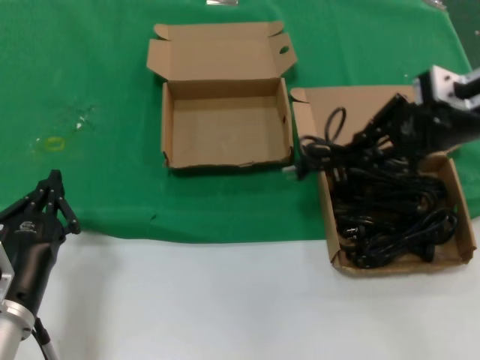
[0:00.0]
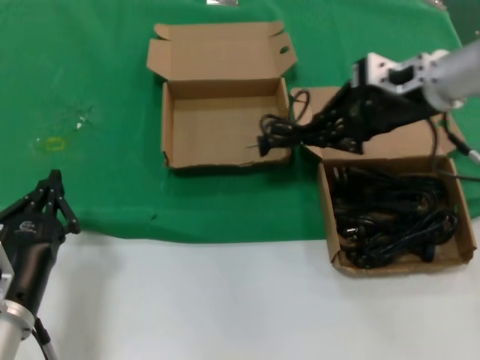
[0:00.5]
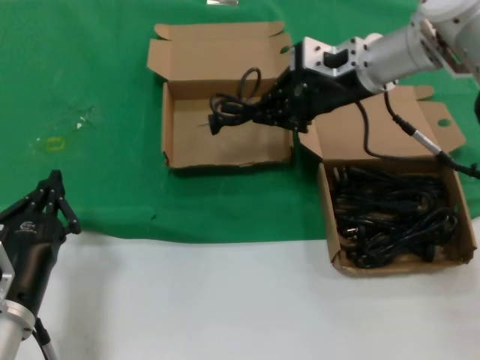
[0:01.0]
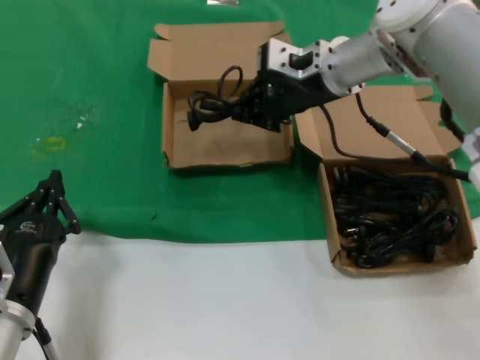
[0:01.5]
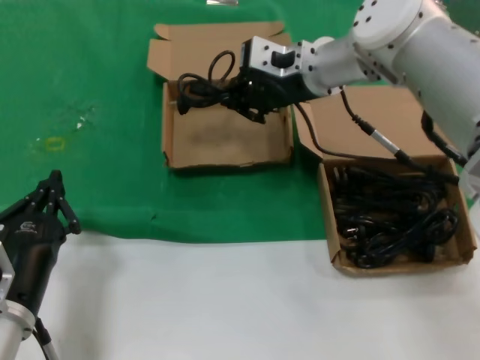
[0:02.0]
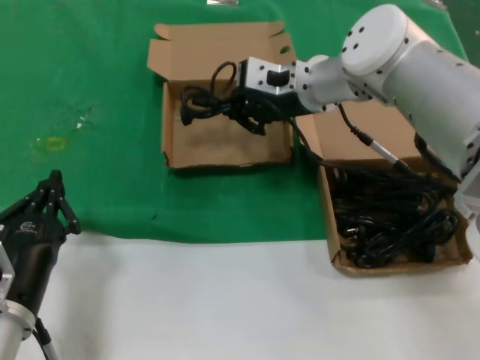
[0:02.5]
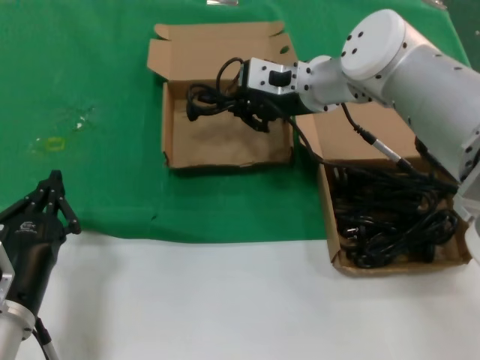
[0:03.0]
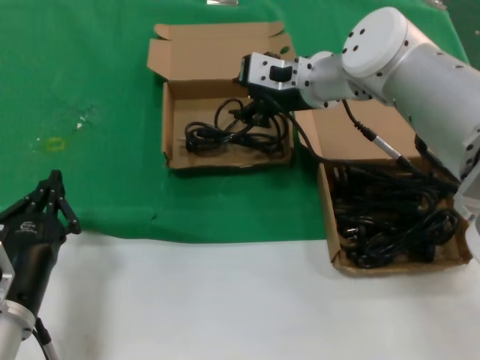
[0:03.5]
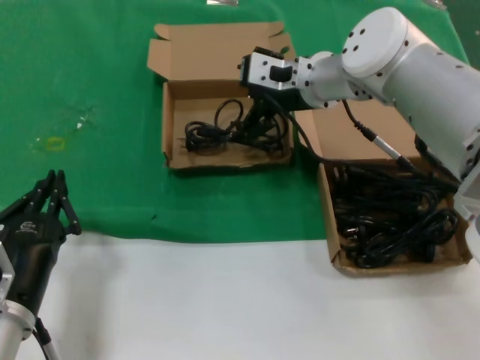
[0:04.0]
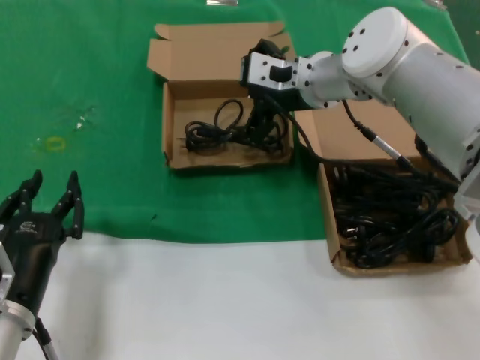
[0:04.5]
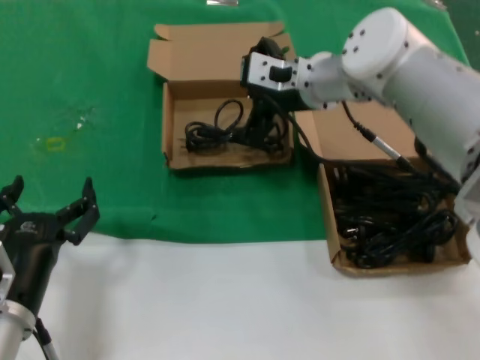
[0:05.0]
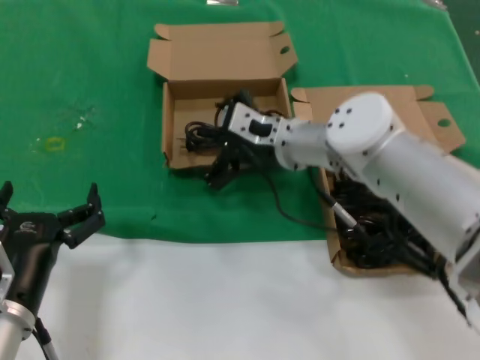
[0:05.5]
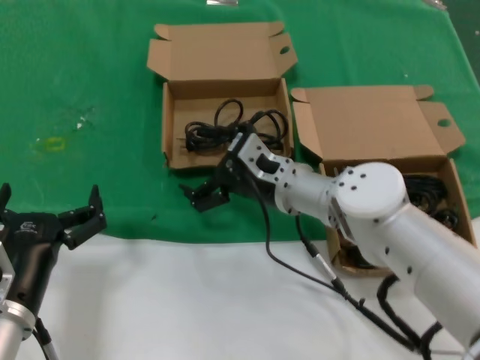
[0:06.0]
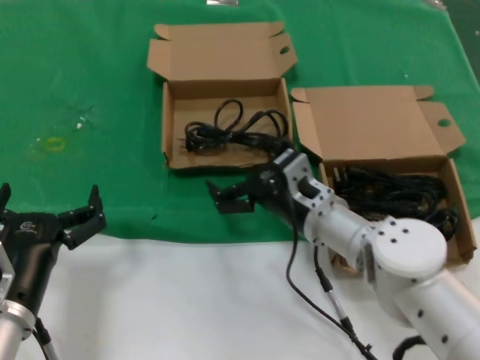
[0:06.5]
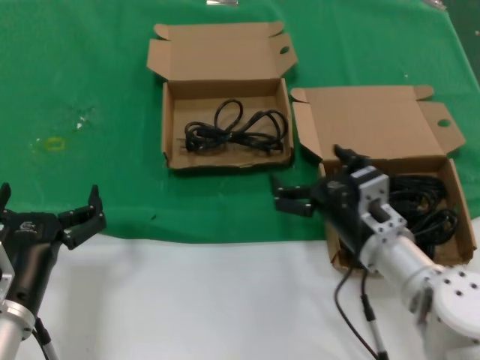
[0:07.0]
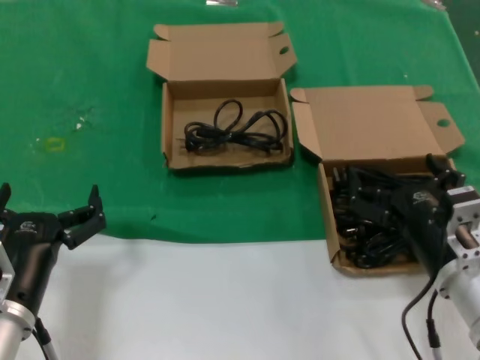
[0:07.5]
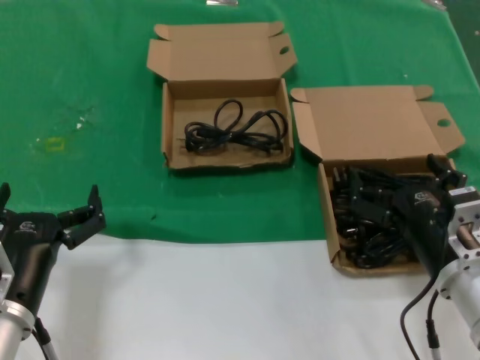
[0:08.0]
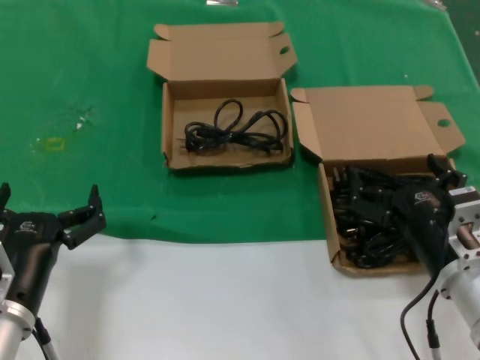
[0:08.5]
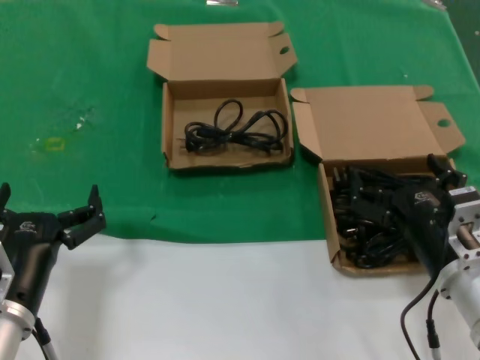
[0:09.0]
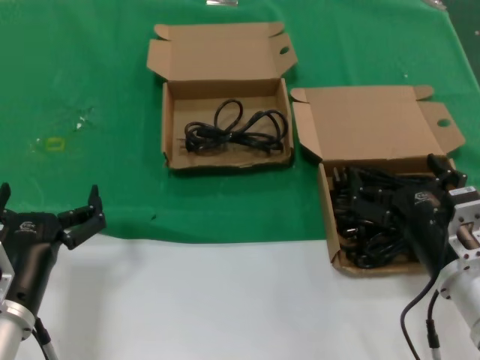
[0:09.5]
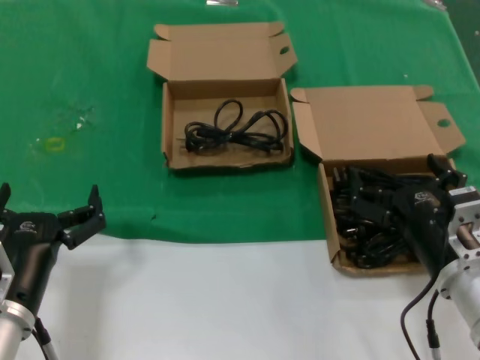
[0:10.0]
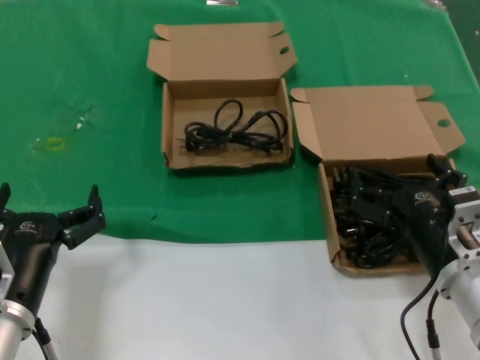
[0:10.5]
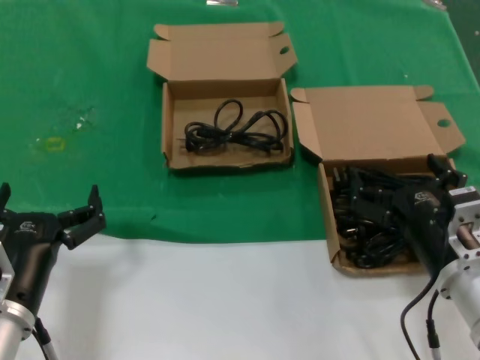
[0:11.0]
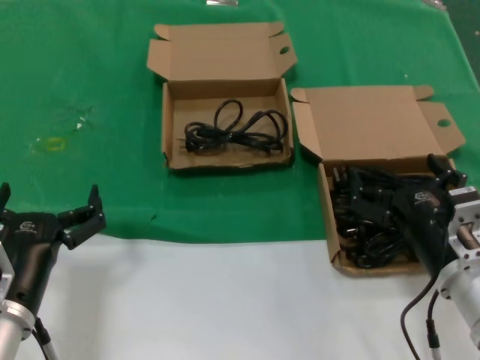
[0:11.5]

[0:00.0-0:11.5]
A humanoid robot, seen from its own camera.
Task of the whole recording: take the parts from the box containing them and put them into an empty box.
Step, 0:00.0 to 0:03.0: Place the data cable in the another box.
0:00.0 to 0:02.0: The right hand is displaced to the left and forward by roughly 20 cm.
0:02.0 to 0:04.0: There are only small adjustments of the hands.
0:04.0 to 0:06.0: The right hand moves downward and backward, roughly 15 cm.
0:06.0 to 0:07.5: The right hand moves backward and to the right, about 25 cm.
0:07.5 to 0:11.5: Neither hand changes place.

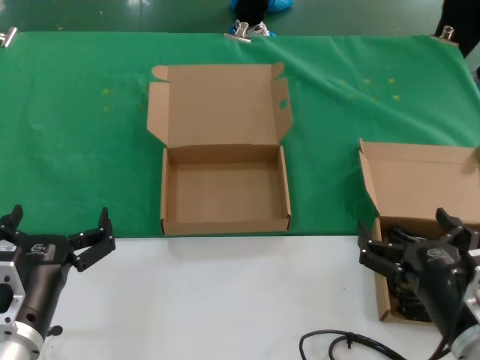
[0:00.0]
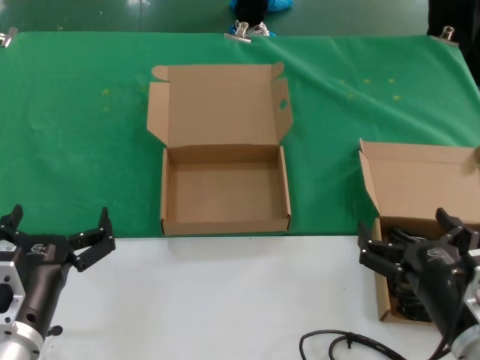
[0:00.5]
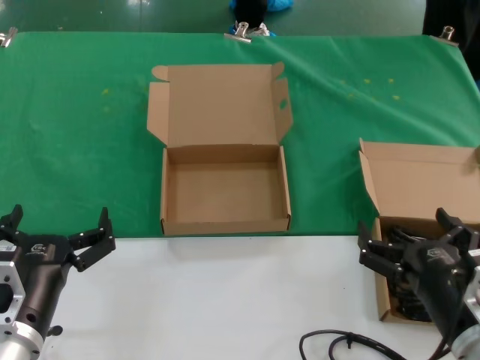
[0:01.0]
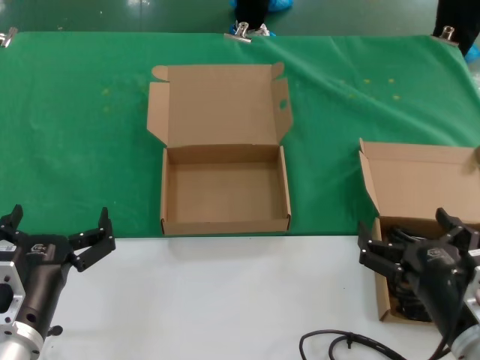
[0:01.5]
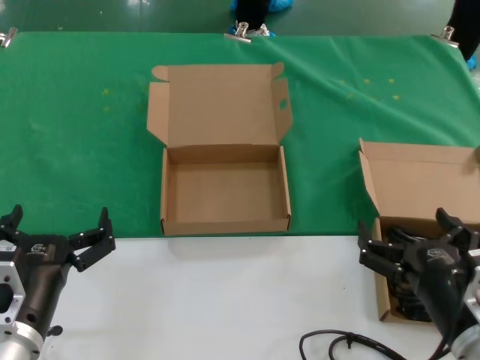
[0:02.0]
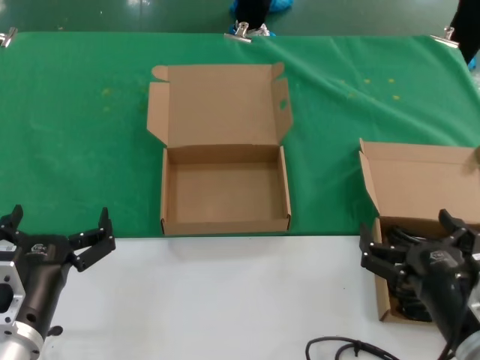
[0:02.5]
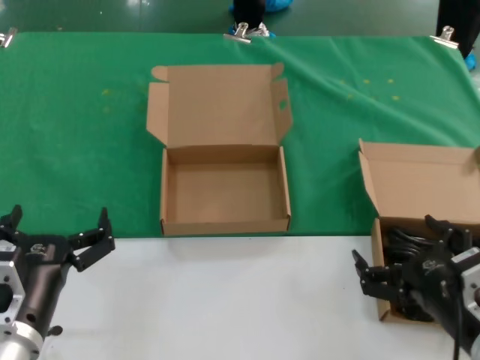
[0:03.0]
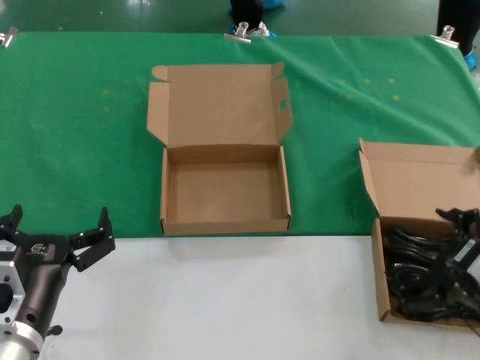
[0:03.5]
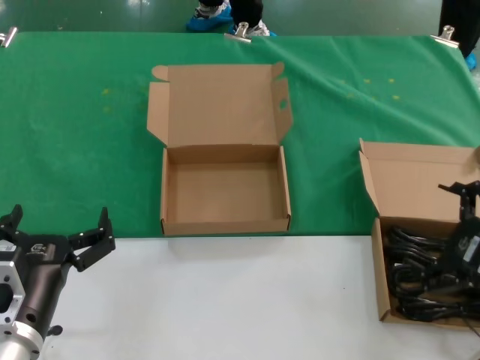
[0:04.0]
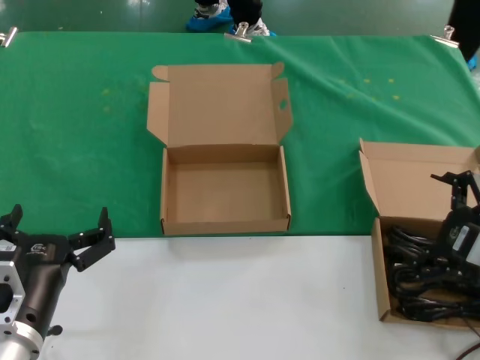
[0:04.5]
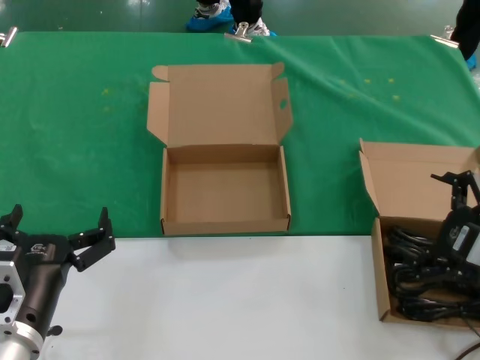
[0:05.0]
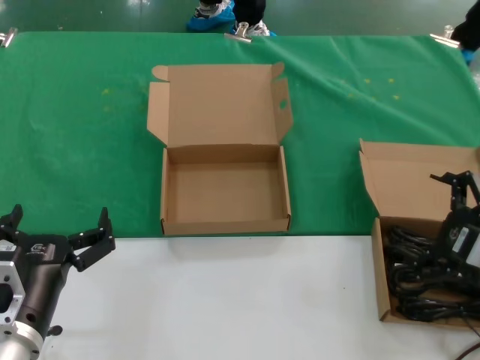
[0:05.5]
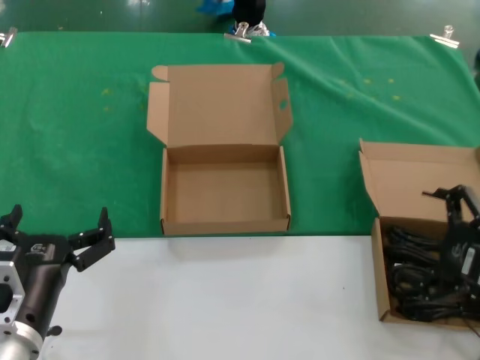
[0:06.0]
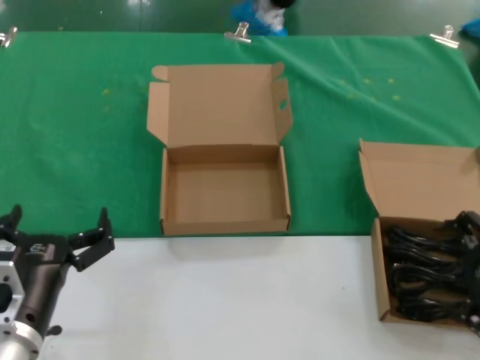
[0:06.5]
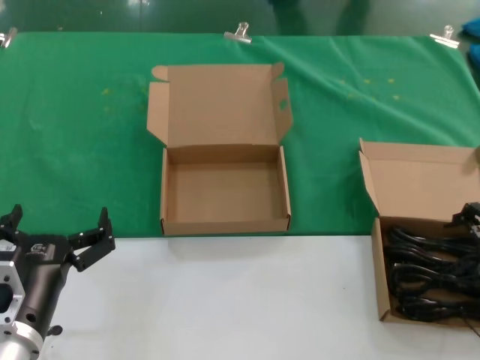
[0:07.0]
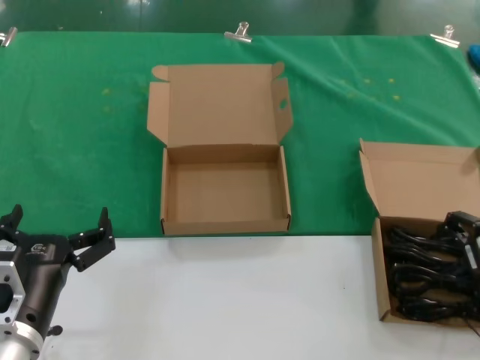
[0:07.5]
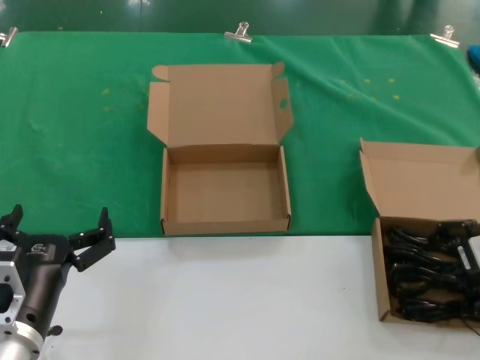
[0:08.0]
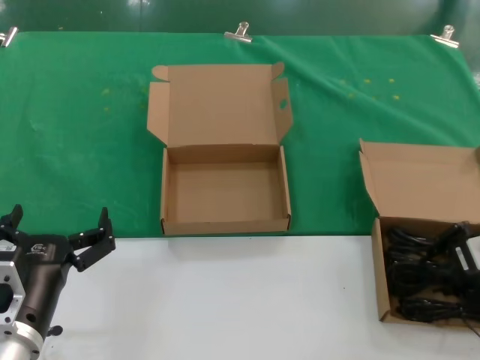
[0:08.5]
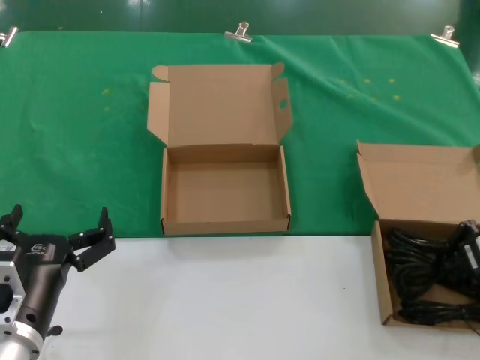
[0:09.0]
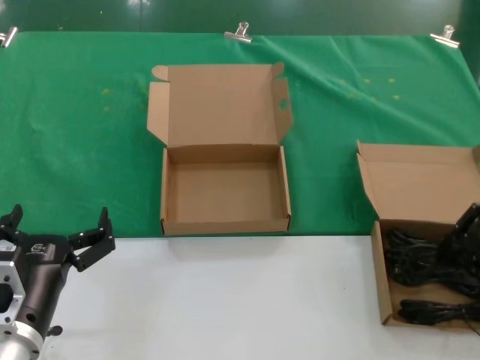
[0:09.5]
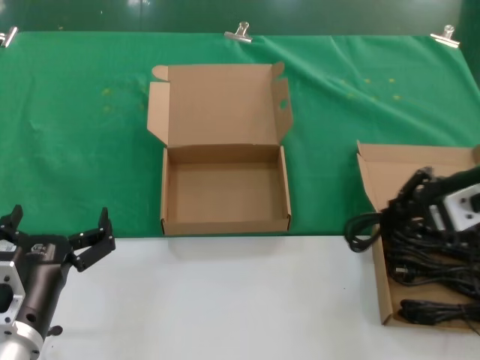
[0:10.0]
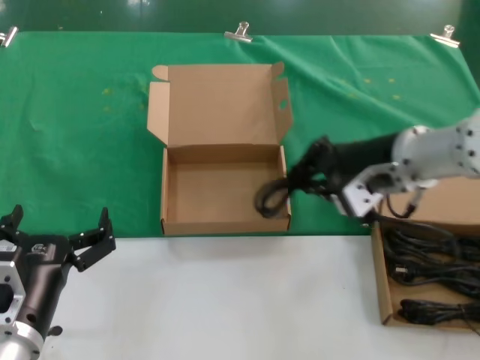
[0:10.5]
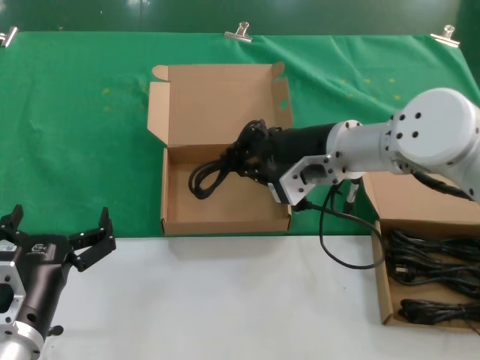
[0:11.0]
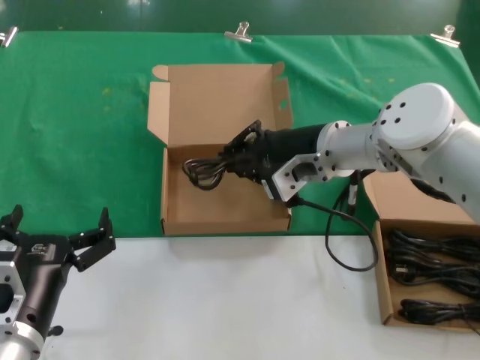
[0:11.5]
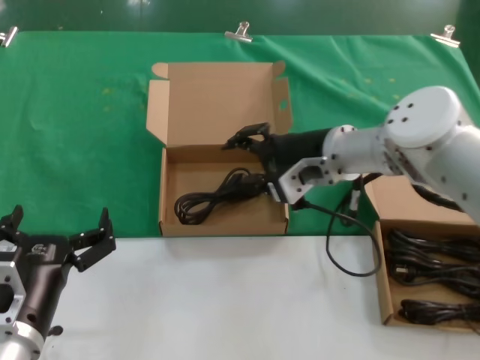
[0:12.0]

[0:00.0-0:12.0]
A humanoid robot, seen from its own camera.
Task of the whole recording: take the parts from the box containing them and put them into an empty box.
Step, 0:00.0 to 0:08.5: Grasp the data cable.
Step, 0:09.0 to 0:11.5: Place the data cable in the another box.
0:00.0 to 0:02.0: The two hands keep their place.
0:02.0 to 0:04.0: The right hand shifts about 15 cm to the right and upward.
0:04.0 to 0:06.0: The hands stay close to where they were, moving slightly.
0:06.0 to 0:08.0: The right hand heads forward, covering about 10 cm.
0:08.0 to 0:10.0: The right hand shifts some 10 cm upward and to the left.
0:10.0 to 0:12.0: The right hand goes some 20 cm to the left and forward.

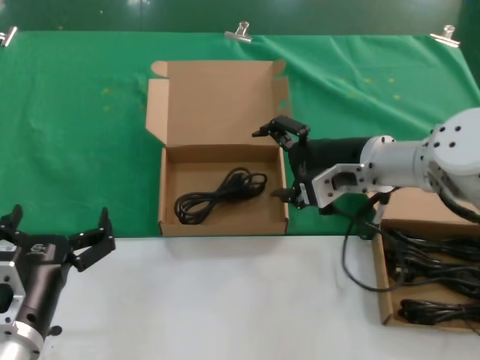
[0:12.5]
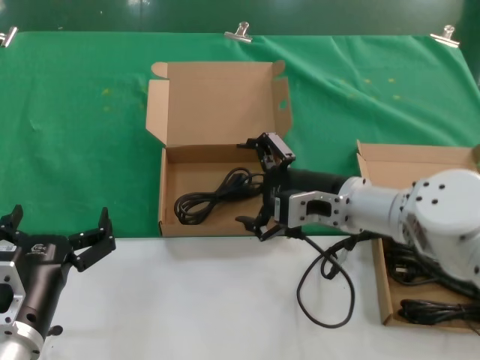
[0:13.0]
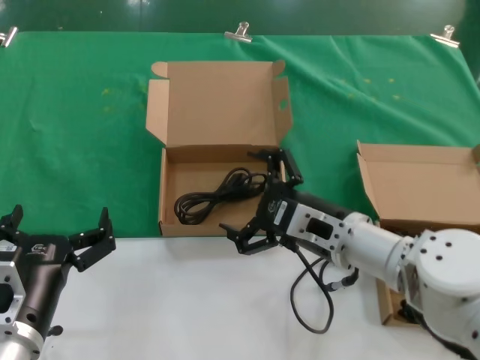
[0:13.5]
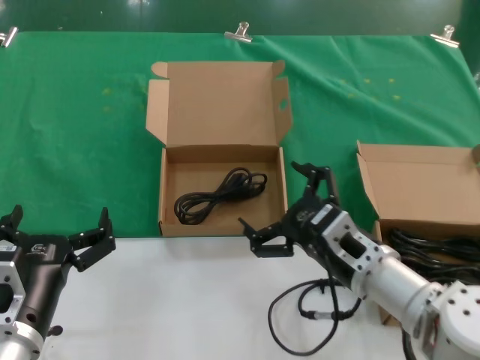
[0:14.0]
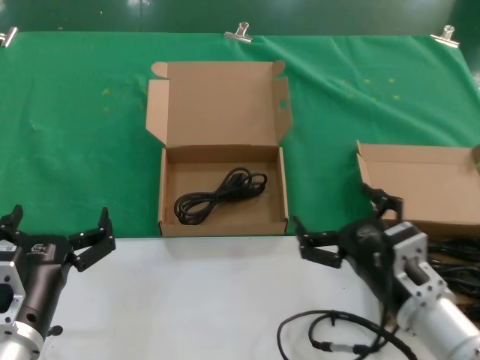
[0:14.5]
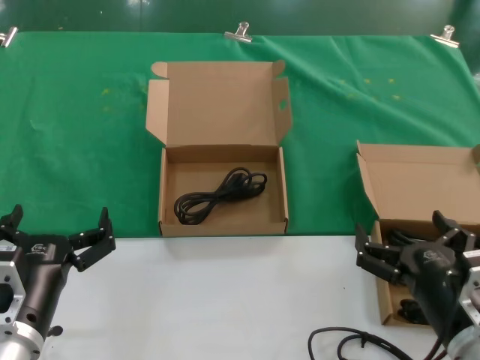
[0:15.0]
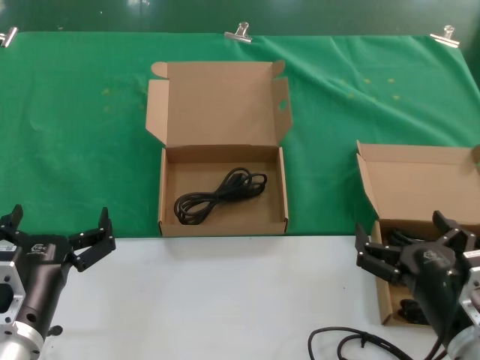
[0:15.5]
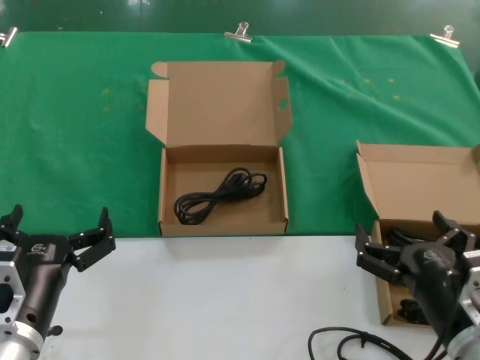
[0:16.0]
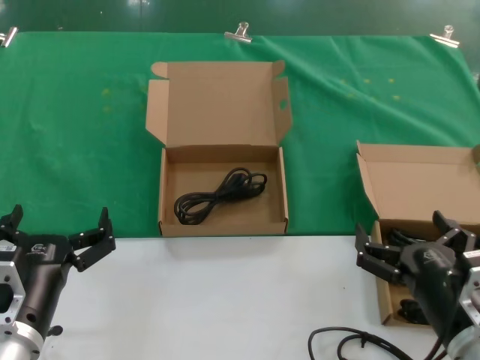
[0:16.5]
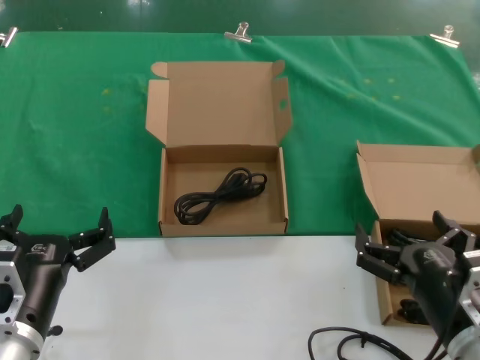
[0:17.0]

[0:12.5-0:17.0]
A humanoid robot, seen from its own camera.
Task of the whole recording: take the parts from the box containing them and put them into an empty box.
0:12.5 to 0:14.5: The right hand moves backward and downward, about 20 cm.
0:14.5 to 0:17.0: The right hand goes roughly 5 cm backward.
